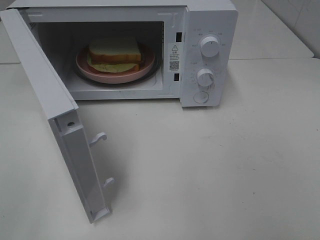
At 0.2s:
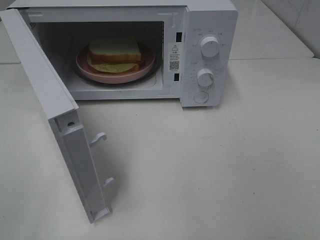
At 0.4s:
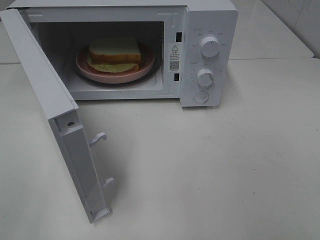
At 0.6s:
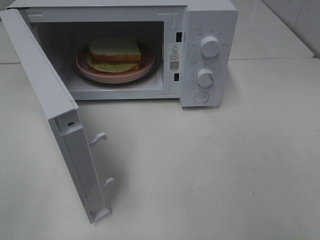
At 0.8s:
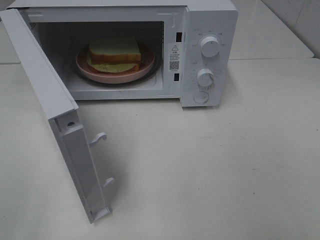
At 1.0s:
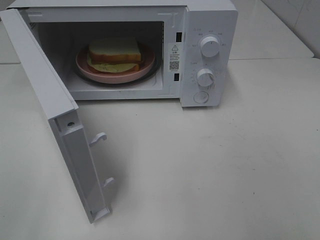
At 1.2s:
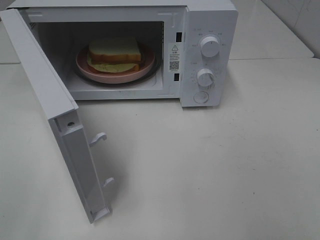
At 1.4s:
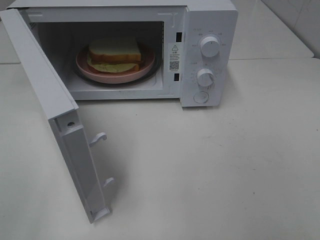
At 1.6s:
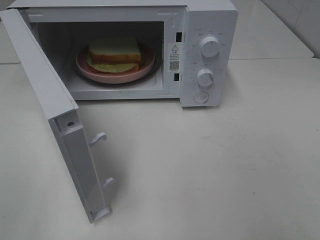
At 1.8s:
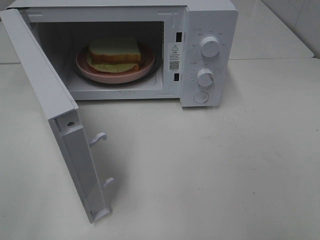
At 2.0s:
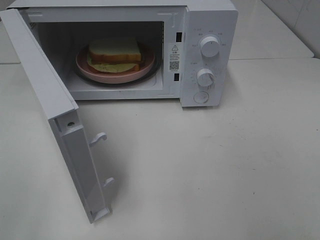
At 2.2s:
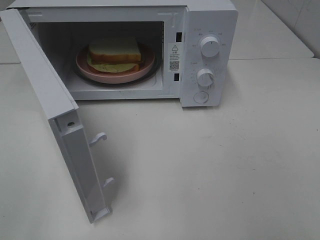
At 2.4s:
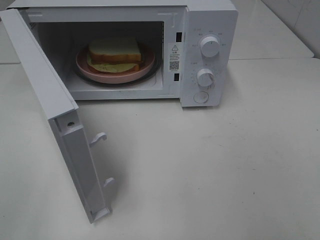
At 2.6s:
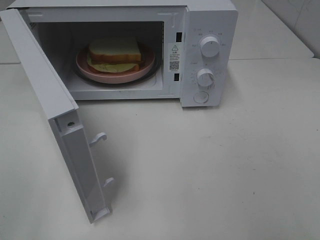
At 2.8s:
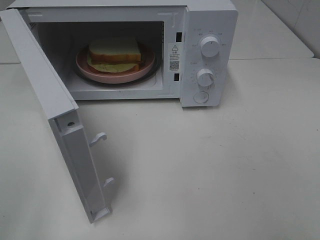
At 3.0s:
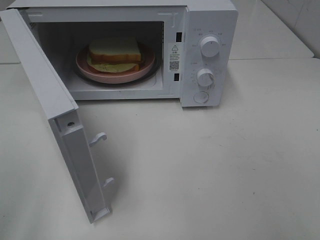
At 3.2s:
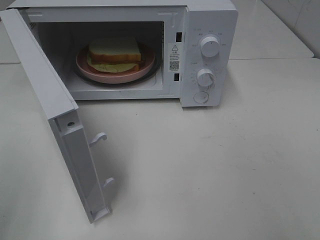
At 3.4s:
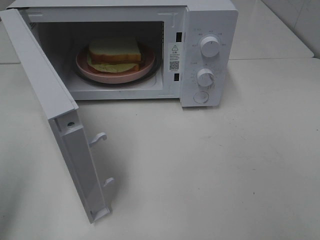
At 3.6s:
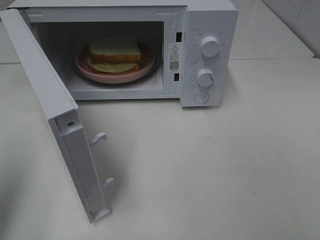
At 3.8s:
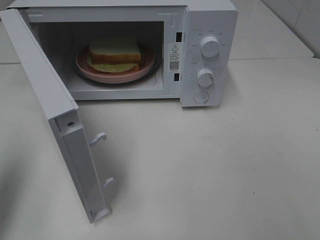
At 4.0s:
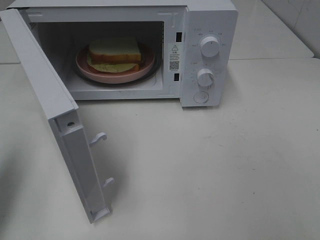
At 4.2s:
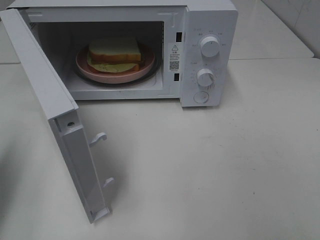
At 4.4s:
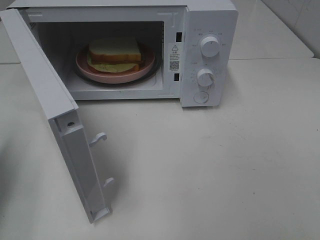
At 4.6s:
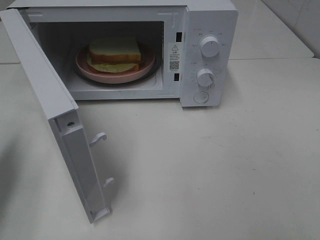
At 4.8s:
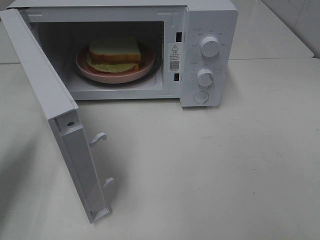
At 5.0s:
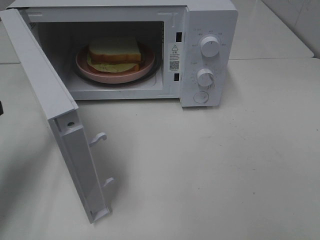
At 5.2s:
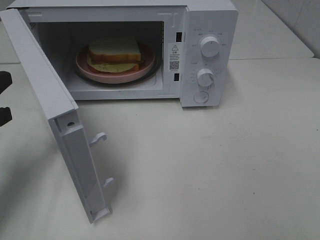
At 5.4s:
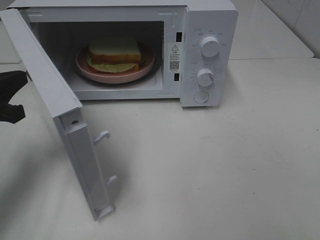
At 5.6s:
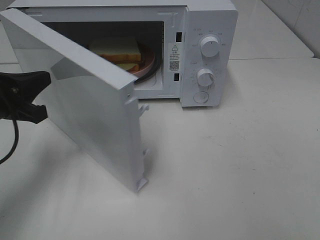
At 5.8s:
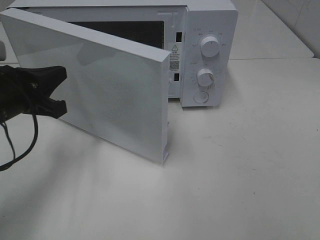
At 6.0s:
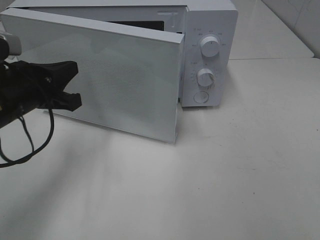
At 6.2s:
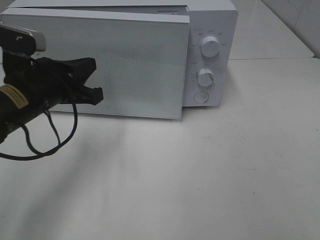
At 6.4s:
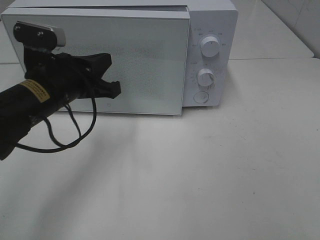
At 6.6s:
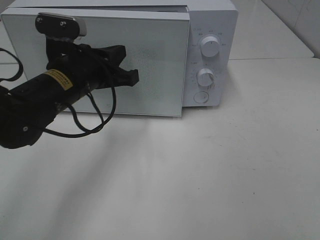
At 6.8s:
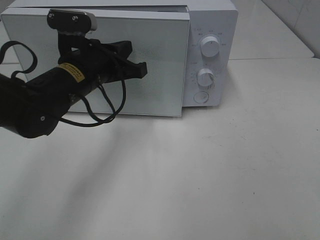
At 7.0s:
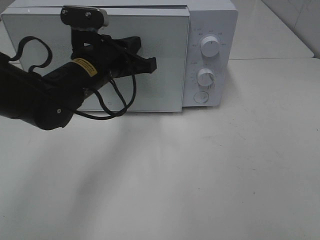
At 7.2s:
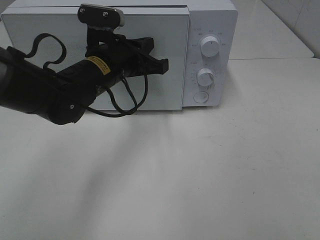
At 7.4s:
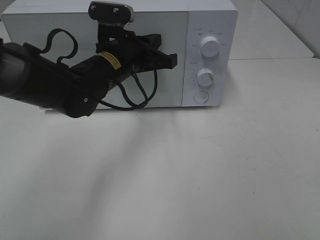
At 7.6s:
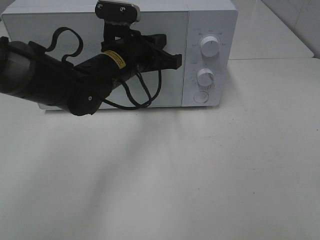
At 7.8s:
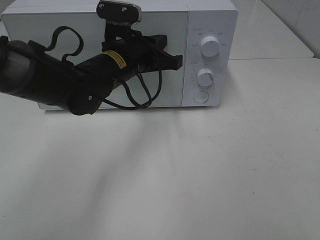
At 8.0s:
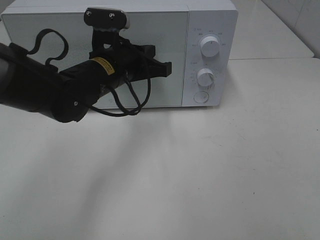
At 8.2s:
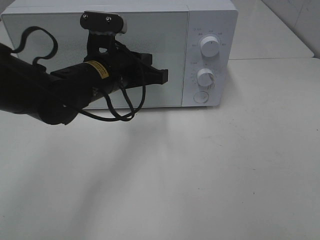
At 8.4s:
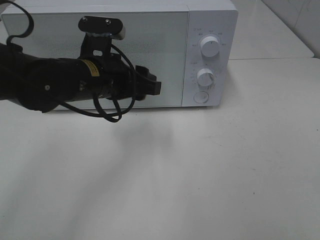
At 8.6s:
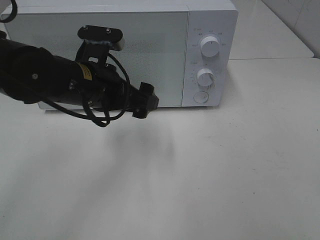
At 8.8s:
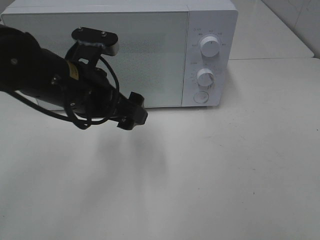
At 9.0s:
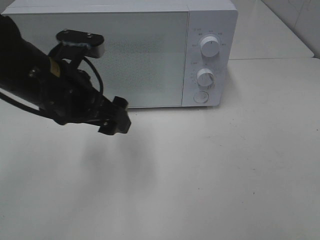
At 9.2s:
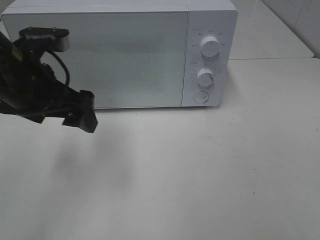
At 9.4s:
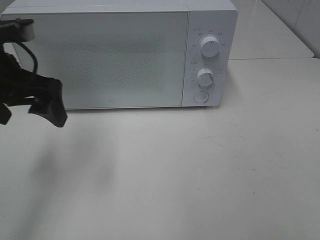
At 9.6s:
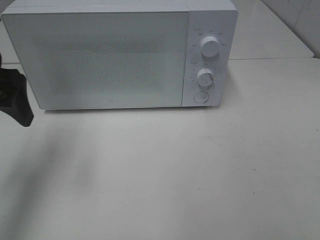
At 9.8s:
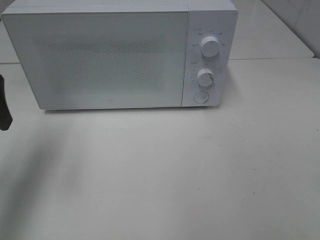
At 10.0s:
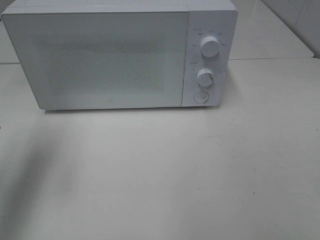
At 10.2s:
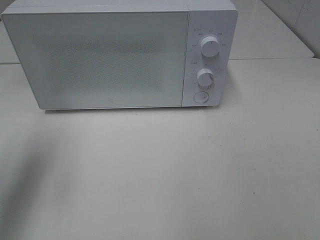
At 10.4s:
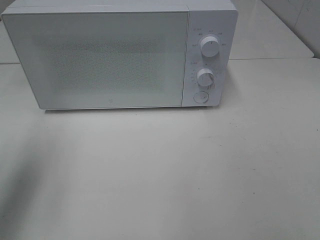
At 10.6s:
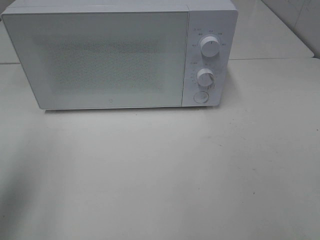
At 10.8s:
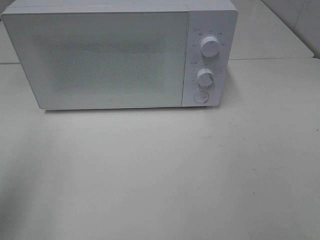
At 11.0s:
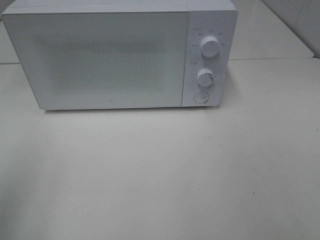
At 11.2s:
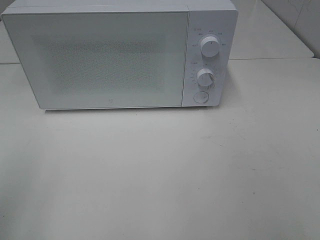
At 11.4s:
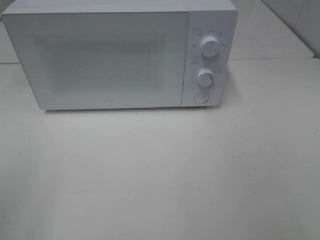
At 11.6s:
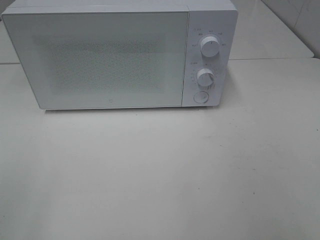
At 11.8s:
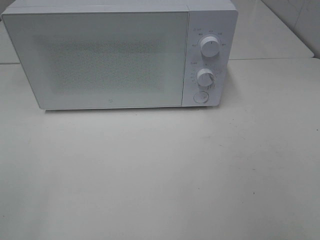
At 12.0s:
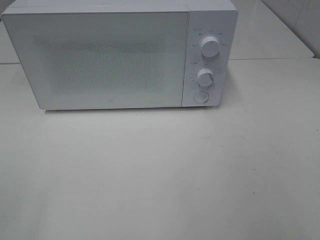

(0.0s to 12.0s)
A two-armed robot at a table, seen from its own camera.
Task of the whole recording: Heat Sandwich.
Step, 0.0s - 8.6s: Left hand: close the microwave door.
3.0s - 4.4s: The left gripper shifts roughly 15 cm forward and downward, and closes up.
4.4s - 6.0s: The left gripper moves to the right and forward, roughly 15 cm.
6.0s - 7.6s: The left gripper moves to the right and forward, roughly 15 cm.
7.6s - 9.0s: The left gripper heads backward and to the left, covering about 15 cm, and opens up.
9.0s - 10.4s: The left gripper heads to the left and upward, covering about 15 cm.
10.4s - 12.0s: The left gripper goes some 20 cm backward.

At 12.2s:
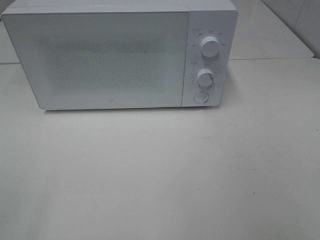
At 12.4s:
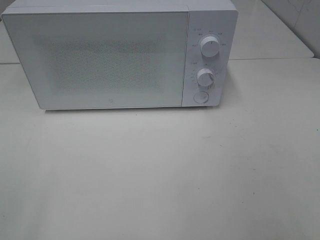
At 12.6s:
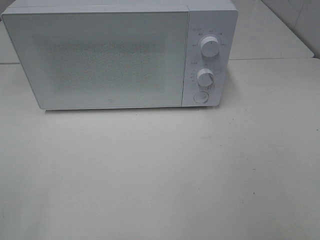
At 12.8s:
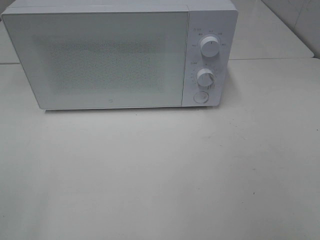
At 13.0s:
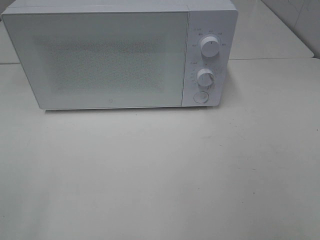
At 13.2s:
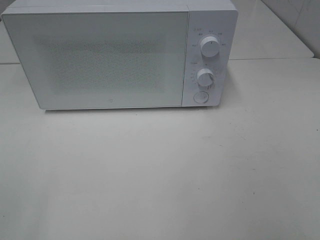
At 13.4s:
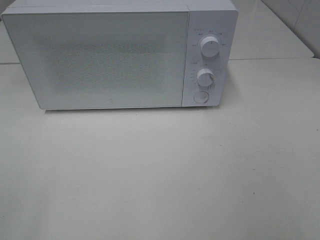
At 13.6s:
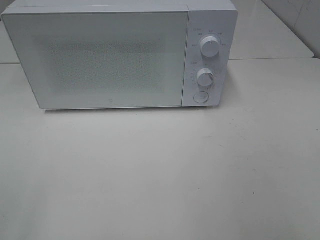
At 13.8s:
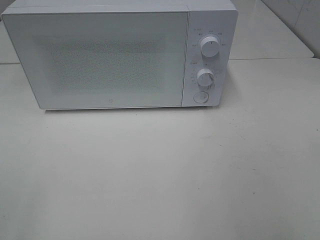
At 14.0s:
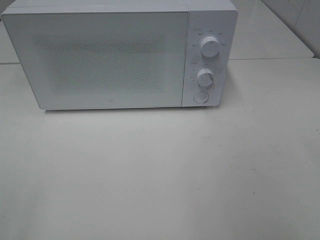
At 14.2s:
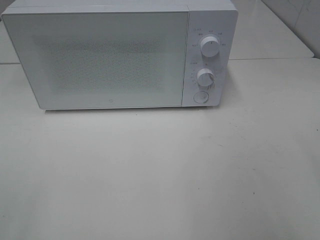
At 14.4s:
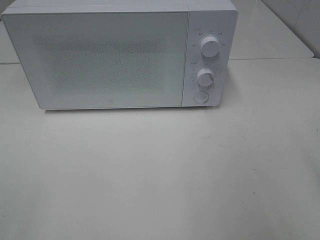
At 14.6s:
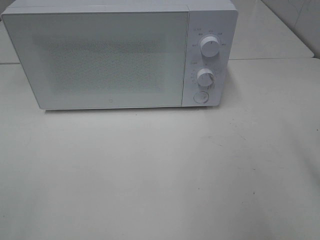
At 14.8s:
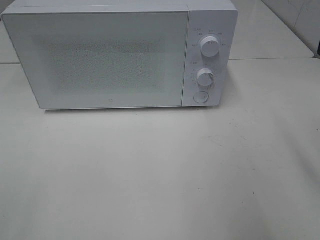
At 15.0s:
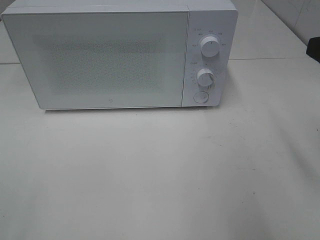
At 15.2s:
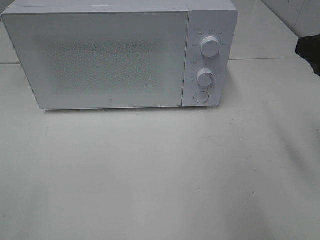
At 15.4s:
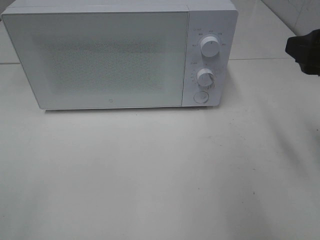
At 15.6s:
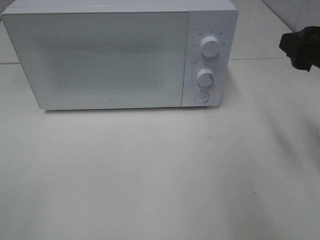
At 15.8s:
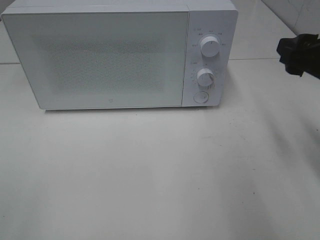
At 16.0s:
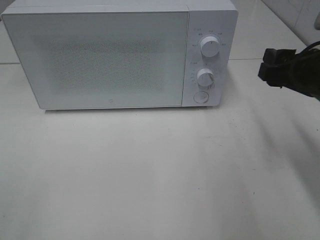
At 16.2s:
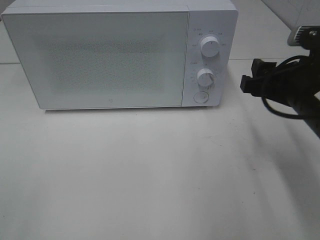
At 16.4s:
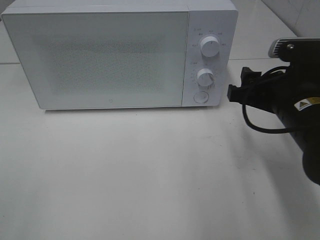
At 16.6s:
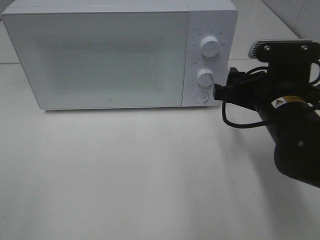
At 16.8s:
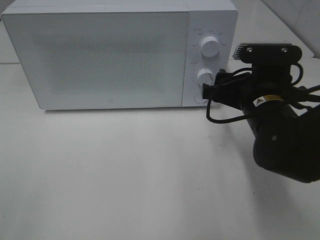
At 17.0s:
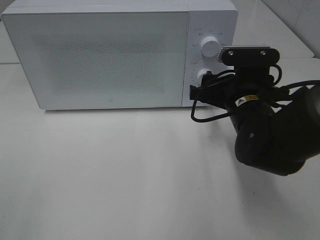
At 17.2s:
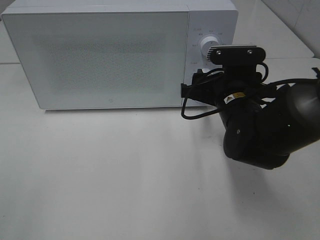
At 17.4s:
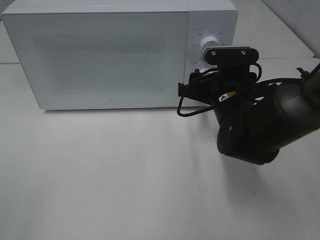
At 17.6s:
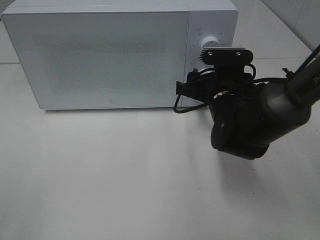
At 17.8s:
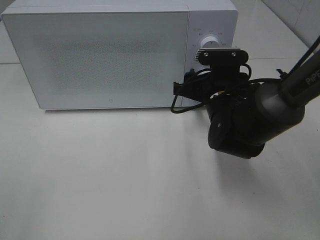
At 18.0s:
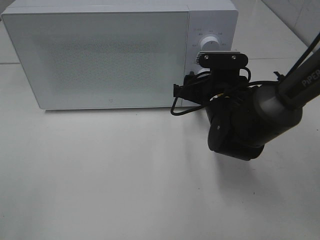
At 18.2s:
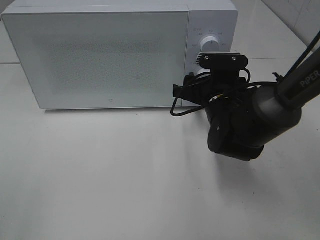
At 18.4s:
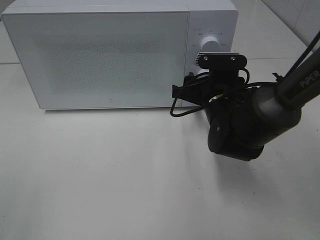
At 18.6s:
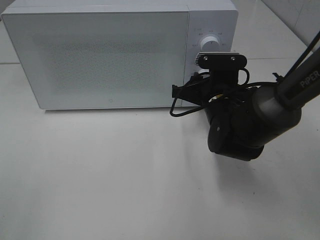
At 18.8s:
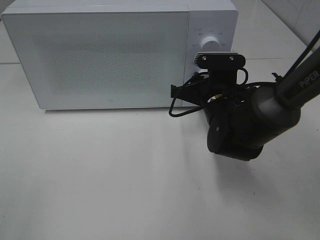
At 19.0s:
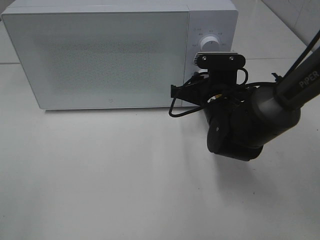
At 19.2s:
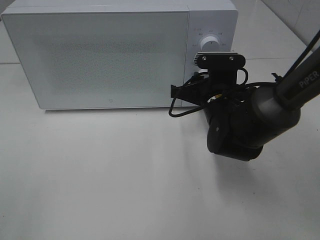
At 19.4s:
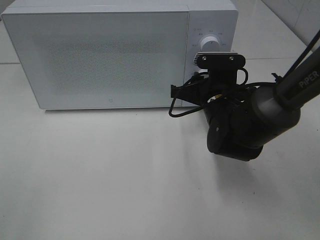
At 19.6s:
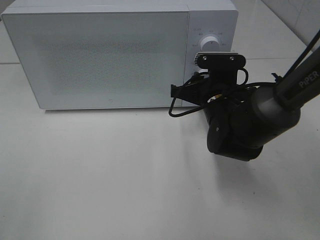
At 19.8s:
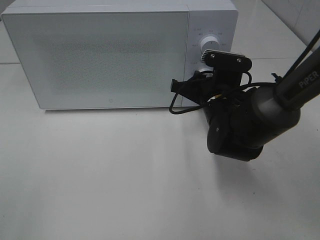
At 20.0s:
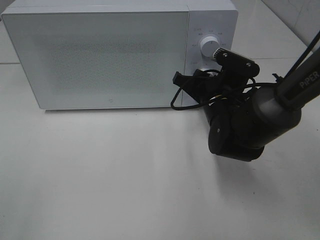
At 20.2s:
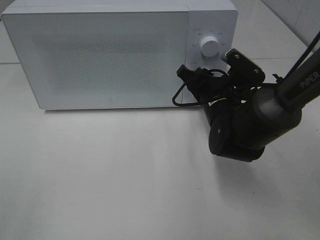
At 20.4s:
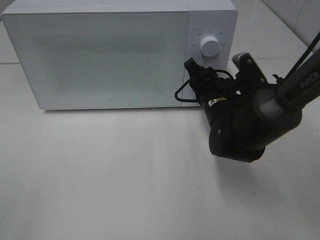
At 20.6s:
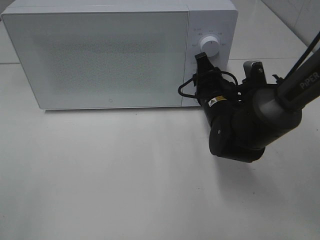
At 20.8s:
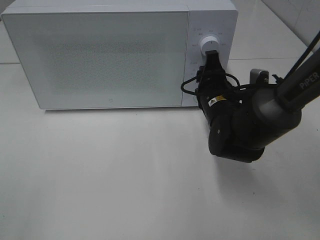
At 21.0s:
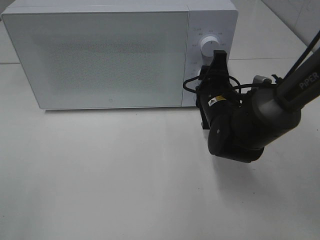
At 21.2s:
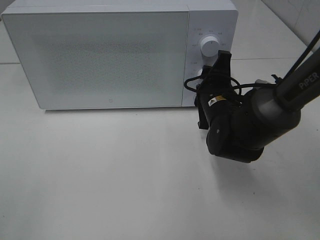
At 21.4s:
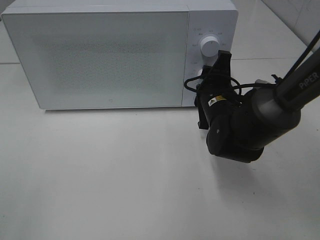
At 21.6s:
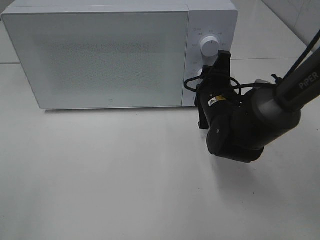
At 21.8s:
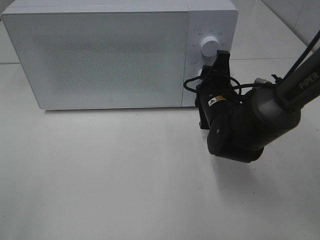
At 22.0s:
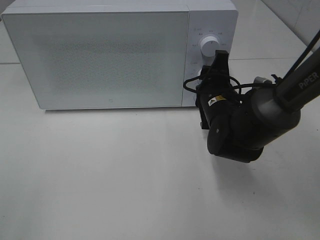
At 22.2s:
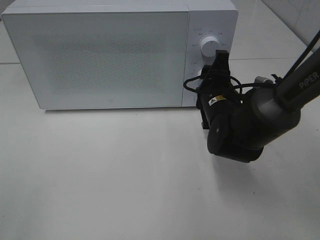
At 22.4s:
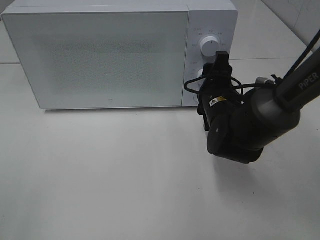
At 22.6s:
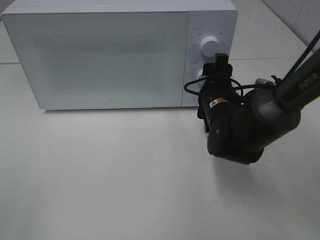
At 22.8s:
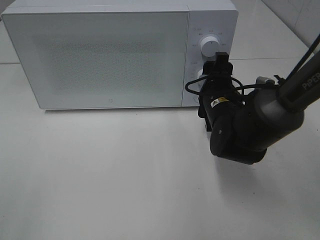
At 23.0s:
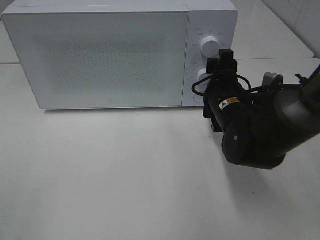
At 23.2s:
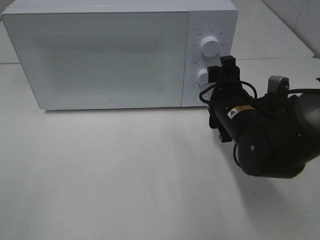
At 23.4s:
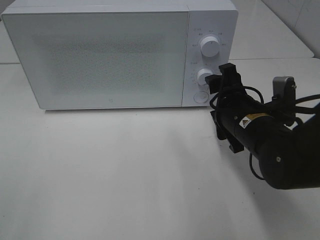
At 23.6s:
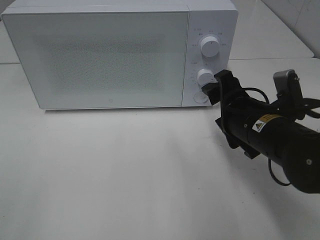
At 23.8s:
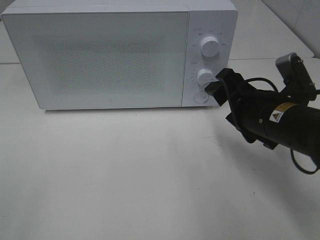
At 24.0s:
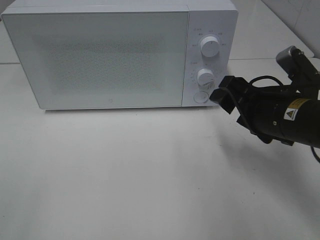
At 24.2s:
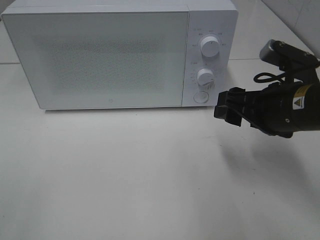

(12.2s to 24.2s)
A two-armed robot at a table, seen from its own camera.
Task of the whole recording: Heat Sandwich.
Step, 12.2s - 23.2s: Right hand: twist timer button.
13.8s - 15.2s: The right gripper goes some 15 cm forward.
15.2s - 16.6s: The right gripper moves downward, to the left and forward, about 15 cm.
16.6s - 18.2s: The right gripper is displaced forward, downward and to the left by about 10 cm.
18.2s - 19.8s: There are only small adjustments of the grippers.
21.2s - 22.6s: The grippers stay close to where they were, moving slightly.
22.6s - 24.2s: The right gripper travels backward, upward and to the right by about 15 cm.
